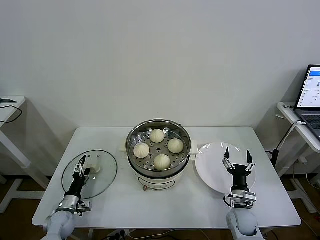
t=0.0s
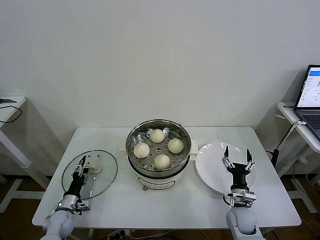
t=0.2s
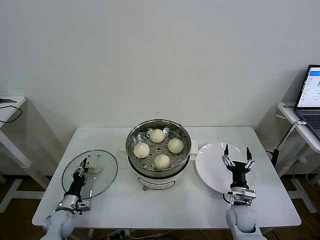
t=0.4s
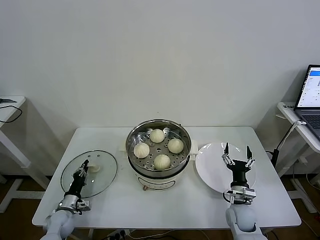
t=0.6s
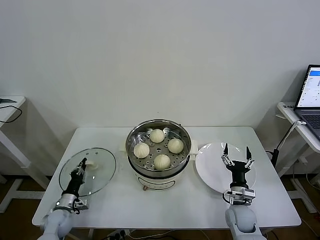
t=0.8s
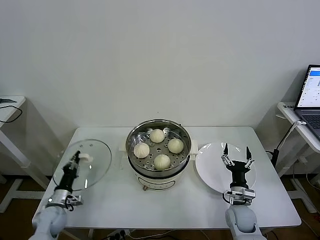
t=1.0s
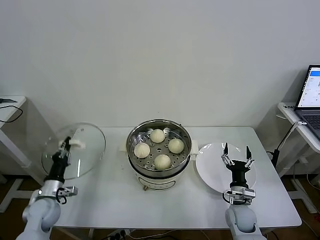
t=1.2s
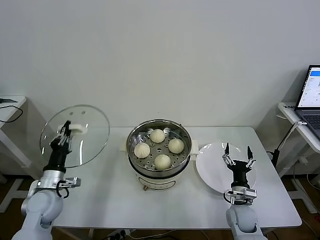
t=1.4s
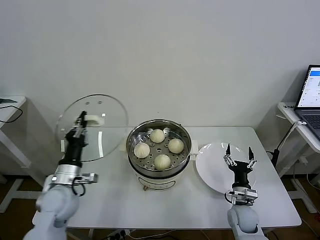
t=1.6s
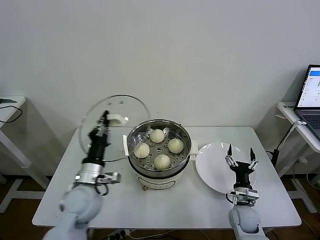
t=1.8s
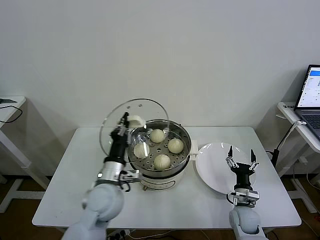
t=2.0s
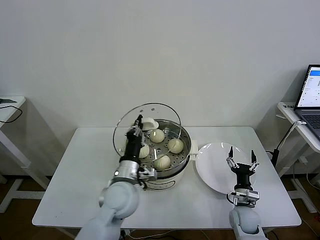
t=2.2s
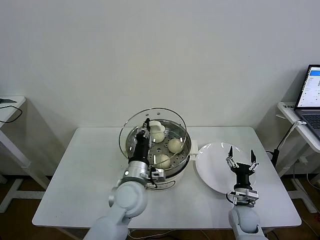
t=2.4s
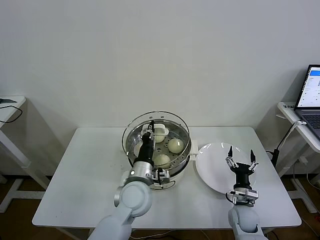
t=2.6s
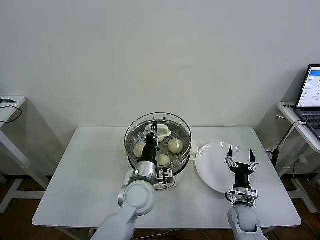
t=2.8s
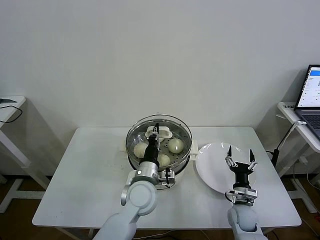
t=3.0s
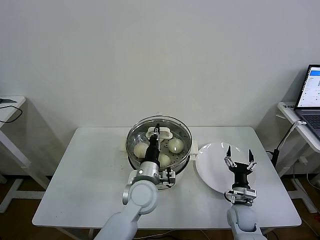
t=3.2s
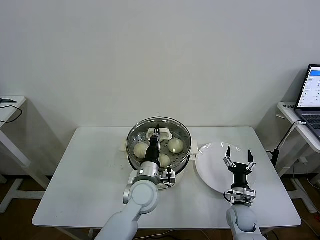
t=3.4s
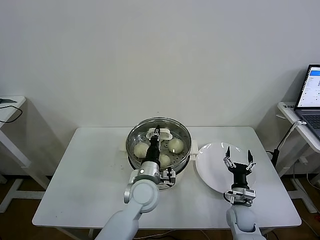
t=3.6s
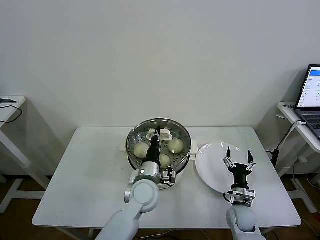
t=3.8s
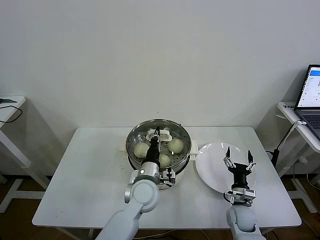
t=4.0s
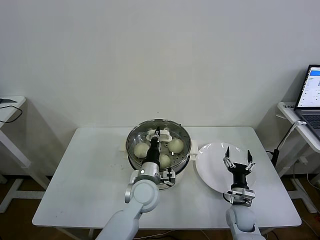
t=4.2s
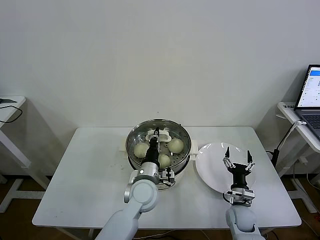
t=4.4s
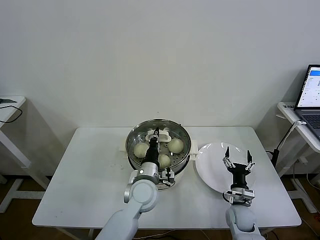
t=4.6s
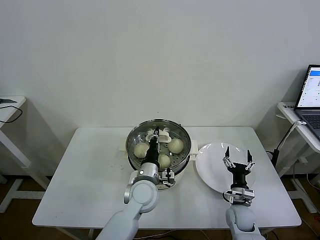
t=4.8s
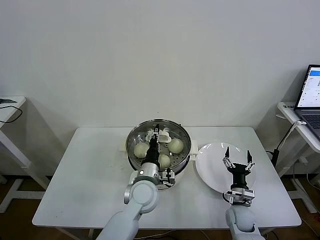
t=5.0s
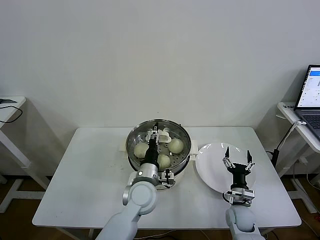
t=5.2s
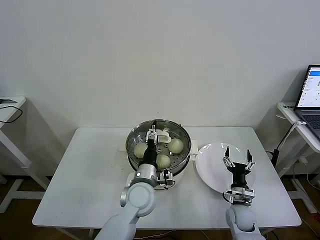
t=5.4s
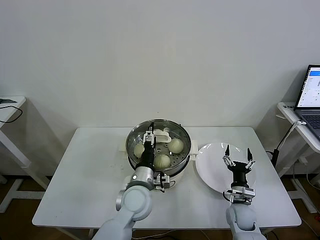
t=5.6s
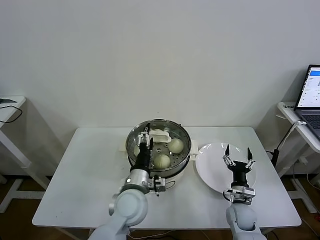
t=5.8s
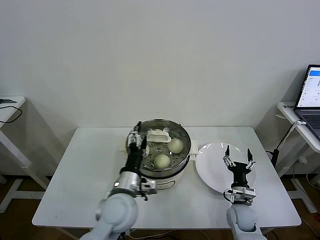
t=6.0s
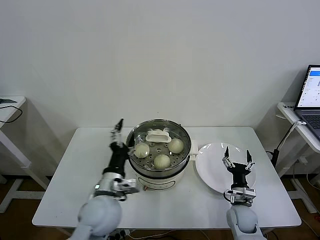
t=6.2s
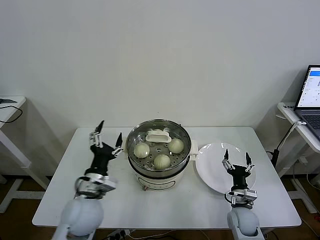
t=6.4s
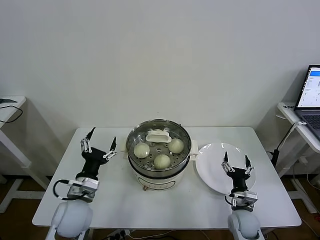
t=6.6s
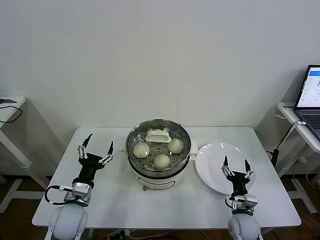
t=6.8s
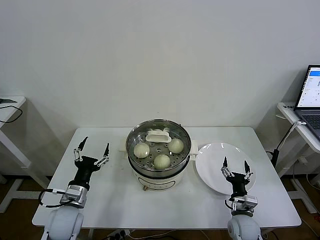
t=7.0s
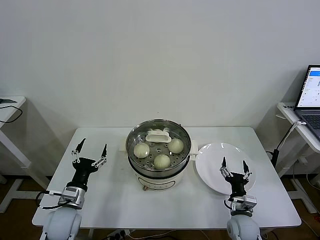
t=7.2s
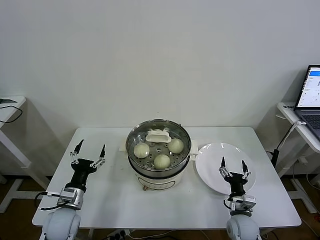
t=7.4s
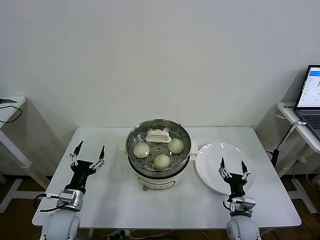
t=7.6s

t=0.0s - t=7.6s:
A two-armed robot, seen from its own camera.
Task of the whole recording: take steamed baozi put them in steamer then cover it.
Step, t=1.0s - t=5.4s: Place the pot lid on the steamer with left gripper.
t=0.0s - t=1.6s: The left gripper is displaced upward by some 20 cm, and closes up.
t=1.6s - t=3.0s: The left gripper moves to the right, about 25 cm.
t=3.0s - t=4.6s: There are only small adjustments of the grippers.
t=4.6s - t=6.0s: The left gripper goes about 5 cm backward, and opens its fingers.
t=6.0s - t=7.6s: The left gripper shifts roughly 20 cm to the left and downward.

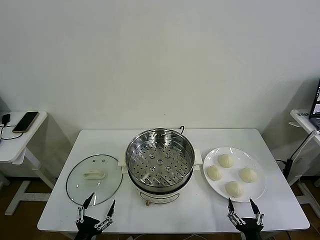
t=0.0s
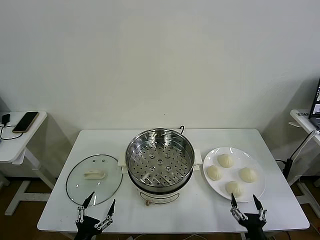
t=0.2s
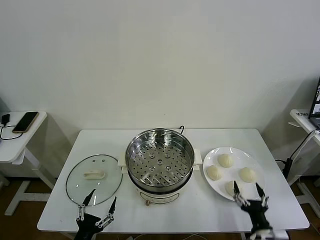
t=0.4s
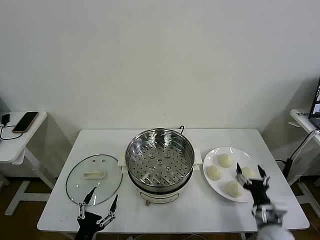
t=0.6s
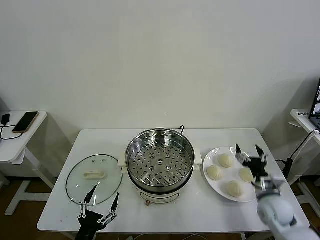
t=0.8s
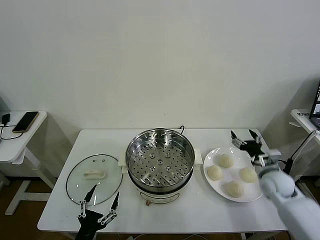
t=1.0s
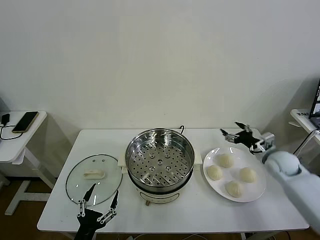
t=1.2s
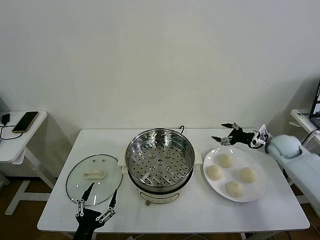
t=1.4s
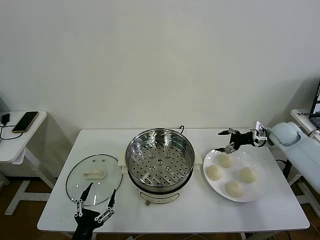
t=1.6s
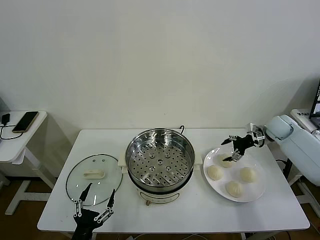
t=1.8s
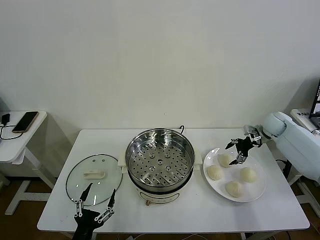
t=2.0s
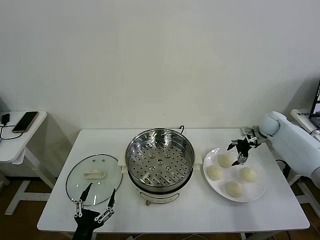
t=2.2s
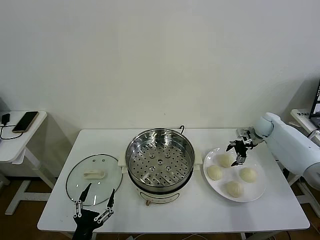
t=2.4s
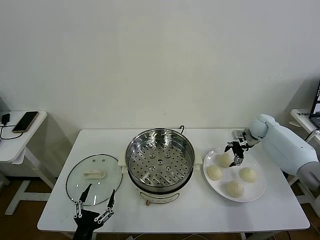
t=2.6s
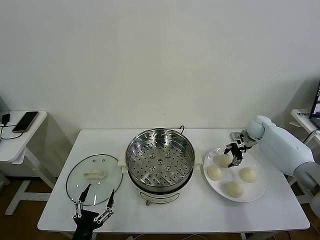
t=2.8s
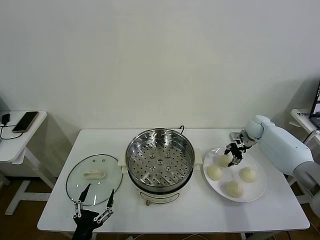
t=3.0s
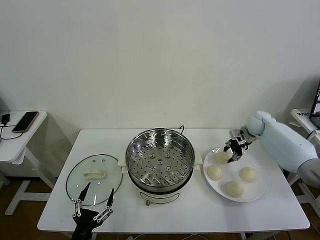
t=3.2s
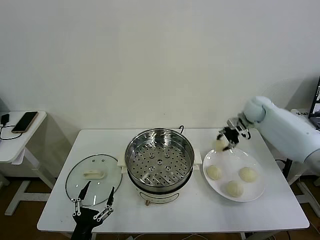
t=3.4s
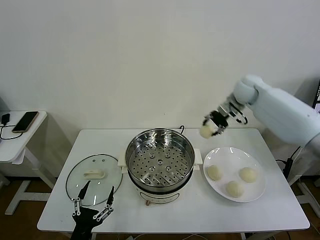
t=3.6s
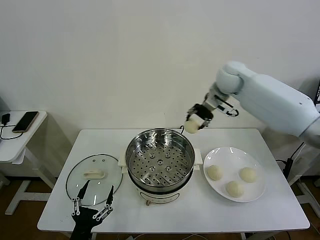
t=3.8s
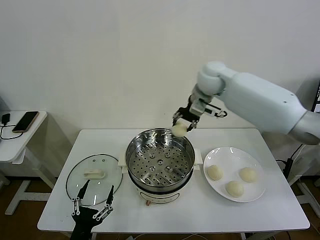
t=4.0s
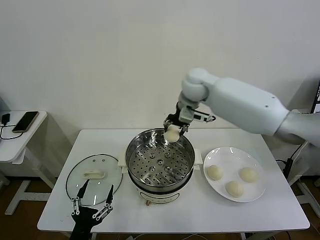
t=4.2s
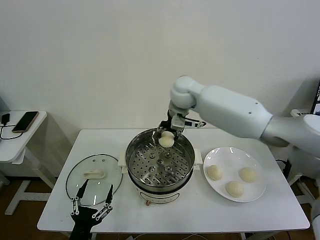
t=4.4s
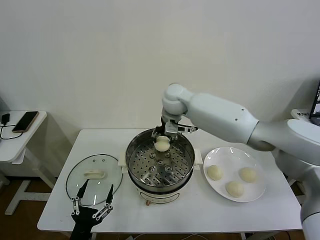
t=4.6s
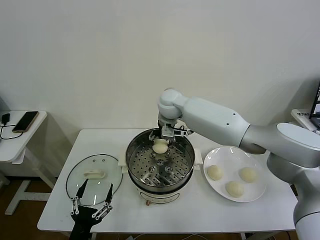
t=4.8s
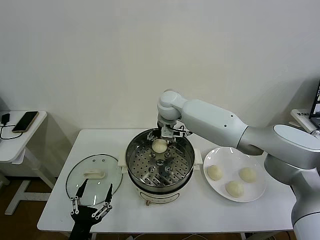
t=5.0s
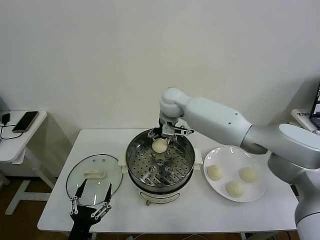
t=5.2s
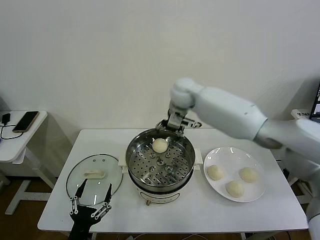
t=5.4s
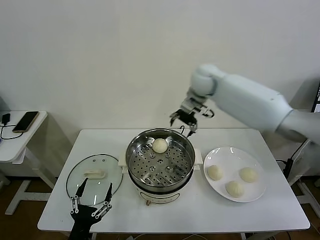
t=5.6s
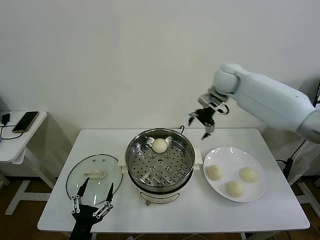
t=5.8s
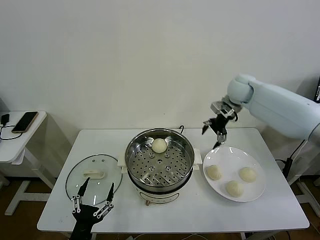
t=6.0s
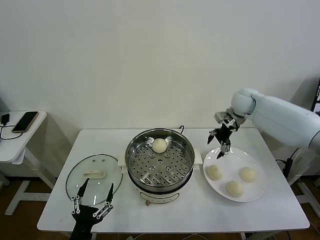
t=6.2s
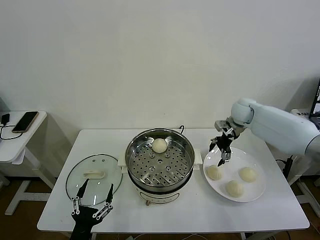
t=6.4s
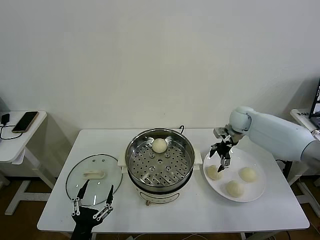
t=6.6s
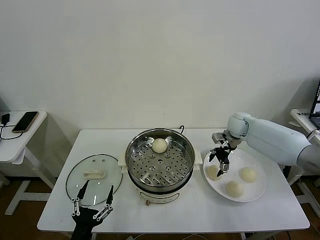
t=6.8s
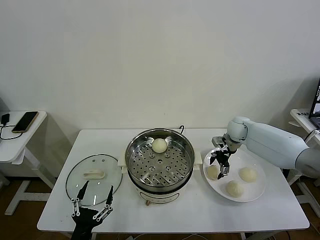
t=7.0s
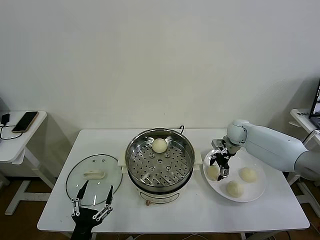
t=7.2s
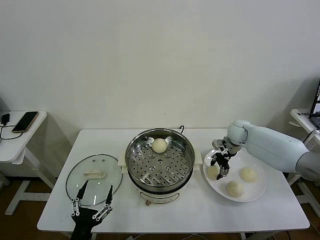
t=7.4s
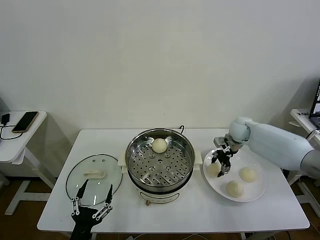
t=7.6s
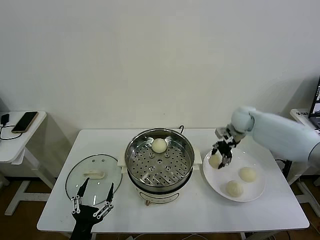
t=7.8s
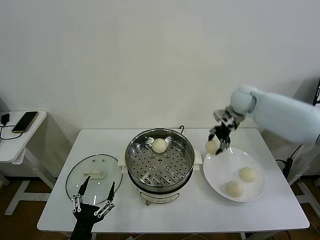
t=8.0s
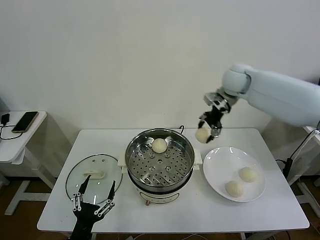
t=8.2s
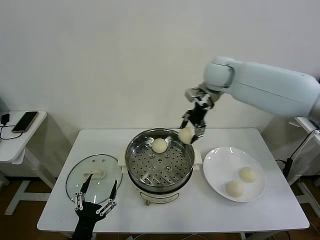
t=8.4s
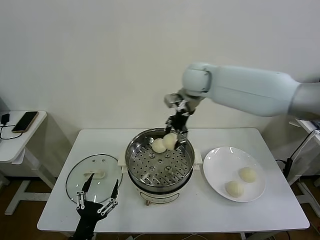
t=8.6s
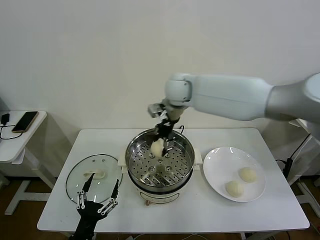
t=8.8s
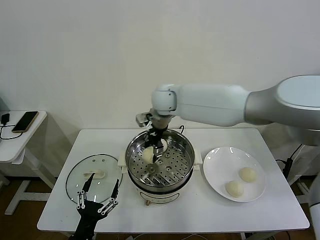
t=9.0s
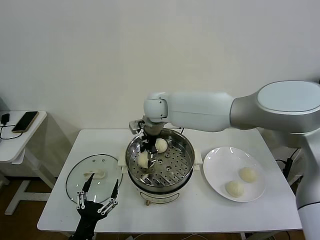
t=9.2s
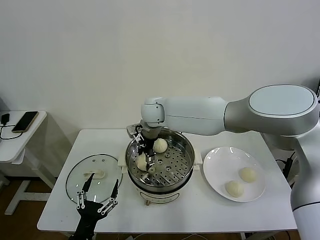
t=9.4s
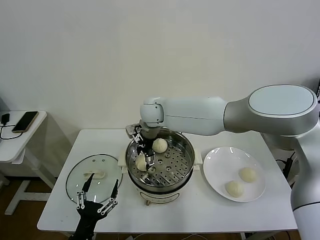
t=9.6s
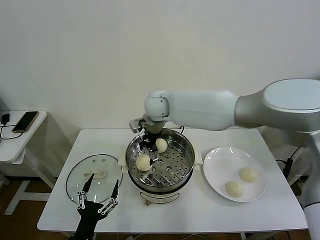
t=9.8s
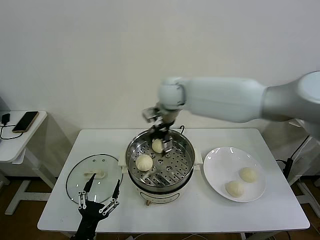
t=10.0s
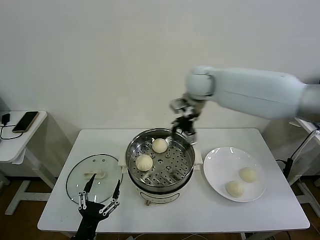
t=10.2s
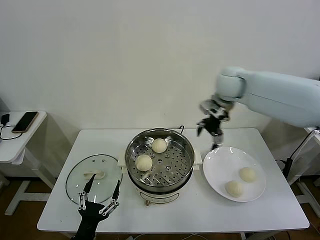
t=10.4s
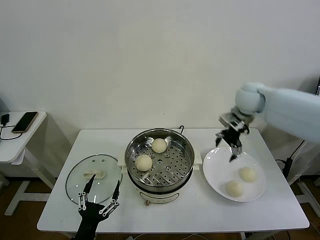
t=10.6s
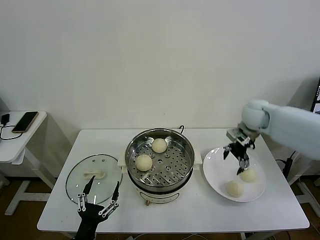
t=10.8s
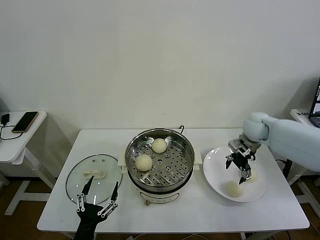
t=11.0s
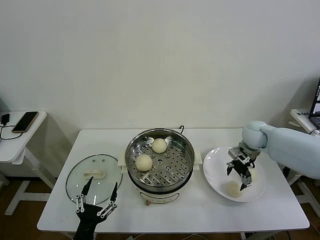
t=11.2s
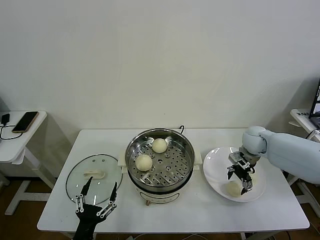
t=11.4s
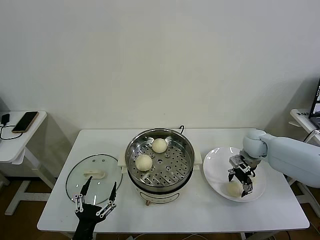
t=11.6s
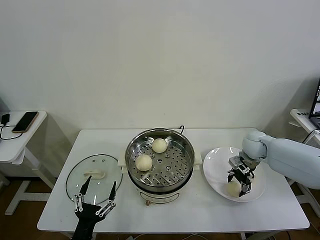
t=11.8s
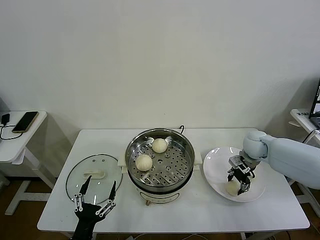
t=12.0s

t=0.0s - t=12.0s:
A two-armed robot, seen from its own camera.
Task of the whole recording: take steamed baozi put them in steamer then cover it.
Step, t=0.0s - t=3.0s: Grasp the baozi in the plate with right gripper.
Step, t=3.2s - t=5.2s: Place the baozi on the steamer with right gripper.
Step, t=5.4s - t=7.4s: Grasp the baozi in the plate with right gripper.
Step, t=7.6s - t=10.0s: Place the baozi on the steamer with right gripper.
Step, t=10.2s - t=11.8s: Grasp the baozi in the plate with right gripper.
t=1.6s - t=3.0s: The right gripper moves forward and to the left, approximately 10 cm, and closes up.
t=3.0s - t=4.4s: The right gripper goes some 40 cm to the left and upward.
t=4.4s - t=6.0s: The right gripper travels to the right by about 25 cm, and opens up.
t=6.0s - t=7.6s: The right gripper moves downward, some 15 cm, and closes its fingers.
t=7.6s - t=9.0s: The right gripper is displaced to the left and upward by roughly 35 cm.
t=9.0s - t=10.4s: The right gripper travels to the right by approximately 25 cm, and opens its fingers.
t=10.4s - t=12.0s: The right gripper heads downward and to the right, covering about 25 cm, and closes its fingers.

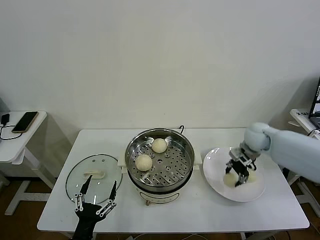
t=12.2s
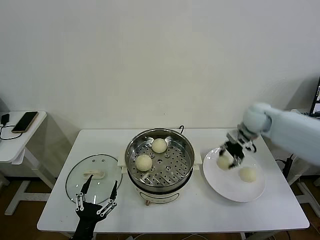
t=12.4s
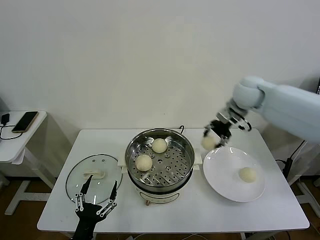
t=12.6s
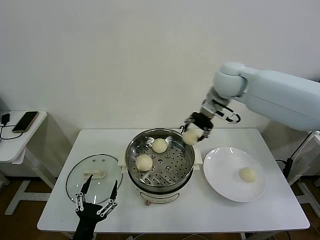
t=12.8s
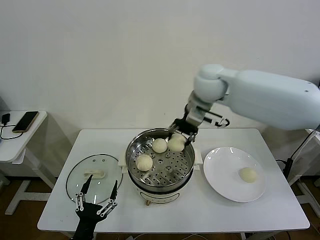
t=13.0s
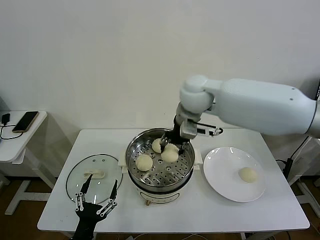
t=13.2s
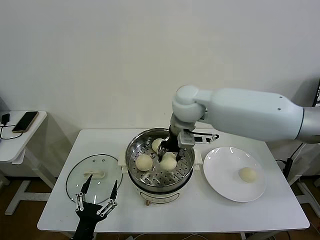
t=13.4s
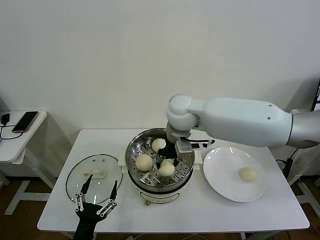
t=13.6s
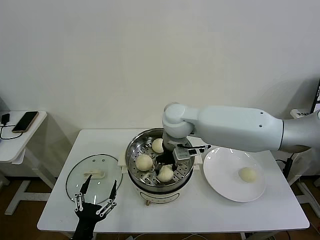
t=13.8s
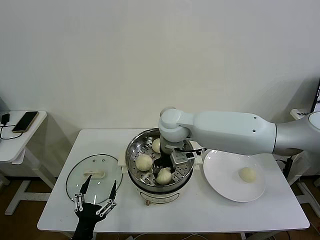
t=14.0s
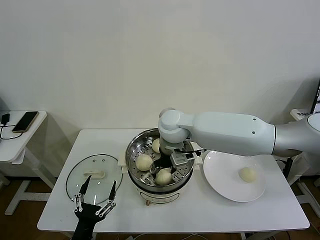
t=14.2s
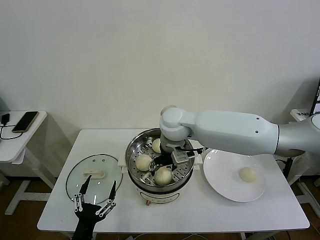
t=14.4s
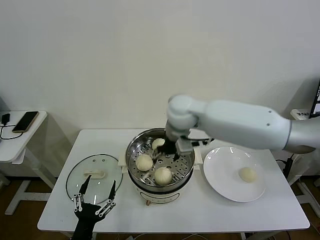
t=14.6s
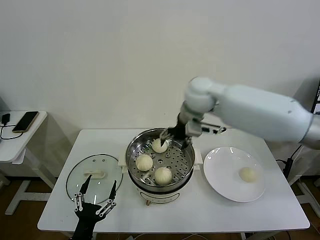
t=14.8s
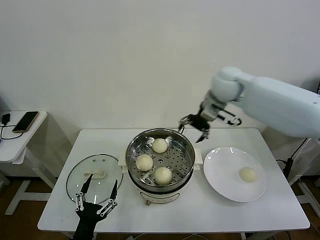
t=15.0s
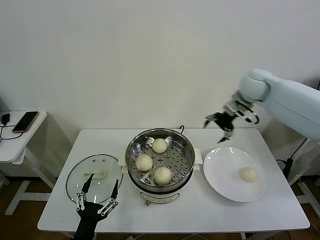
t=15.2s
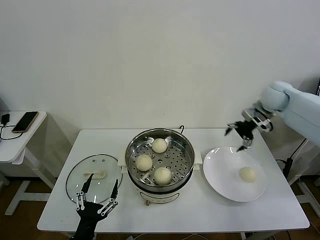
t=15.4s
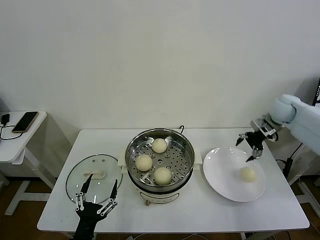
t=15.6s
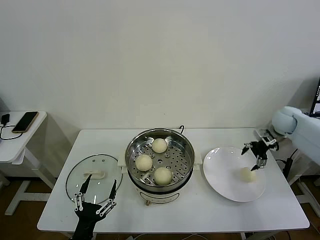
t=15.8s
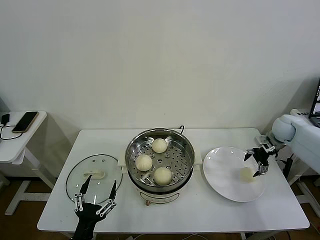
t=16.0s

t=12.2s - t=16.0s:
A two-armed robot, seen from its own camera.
Task of the whole recording: take steamed baozi put them in steamer then cover it.
Step, t=12.2s - t=14.4s: Place the baozi on the steamer with right gripper.
t=12.2s - t=13.4s: The right gripper moves to the left and upward, approximately 30 cm.
t=13.4s - t=14.8s: The right gripper is displaced to the right by approximately 5 cm, and opens.
t=14.8s - t=16.0s: The right gripper is displaced to the right and downward by about 40 cm.
